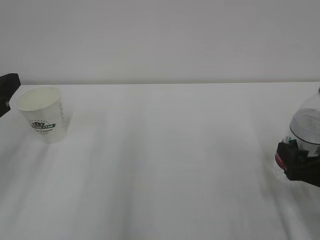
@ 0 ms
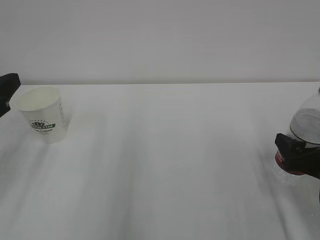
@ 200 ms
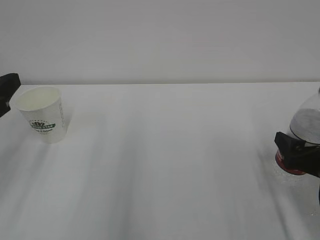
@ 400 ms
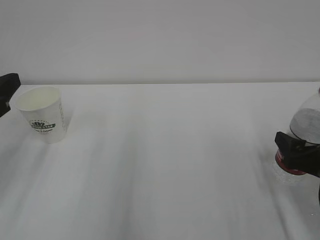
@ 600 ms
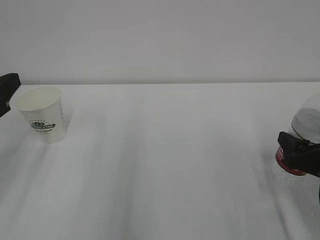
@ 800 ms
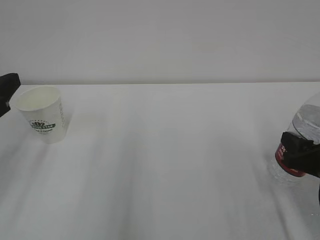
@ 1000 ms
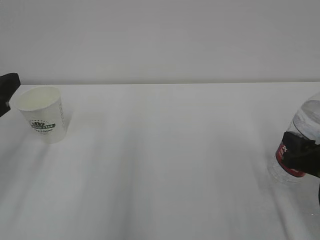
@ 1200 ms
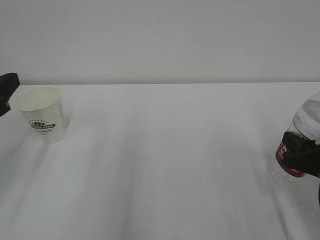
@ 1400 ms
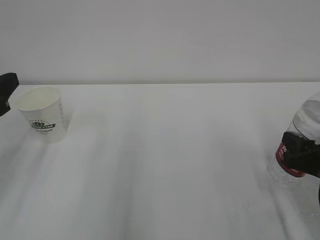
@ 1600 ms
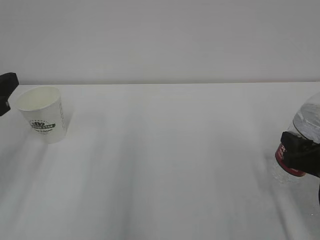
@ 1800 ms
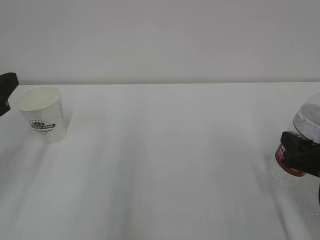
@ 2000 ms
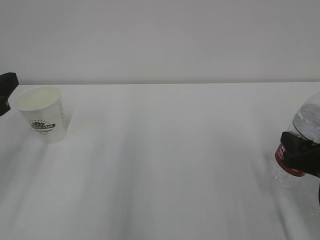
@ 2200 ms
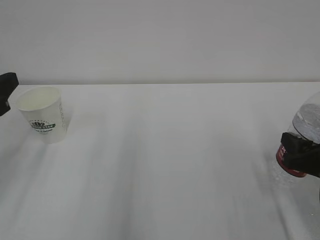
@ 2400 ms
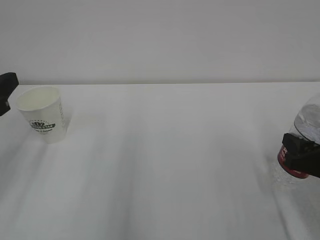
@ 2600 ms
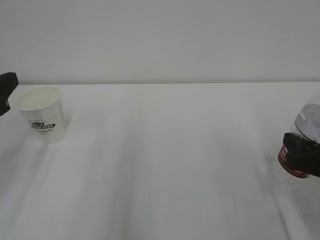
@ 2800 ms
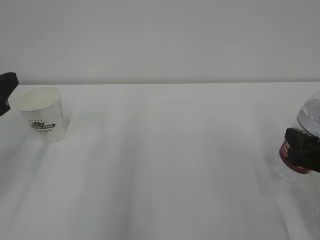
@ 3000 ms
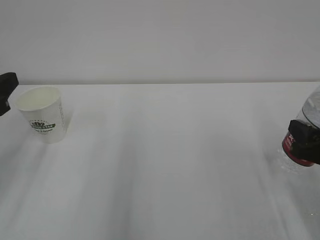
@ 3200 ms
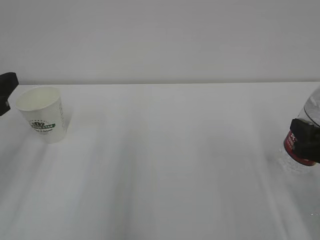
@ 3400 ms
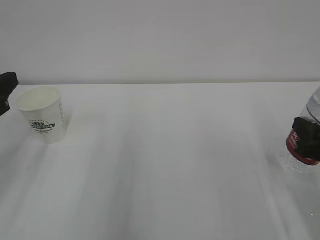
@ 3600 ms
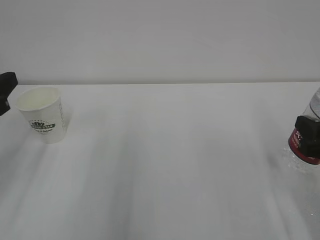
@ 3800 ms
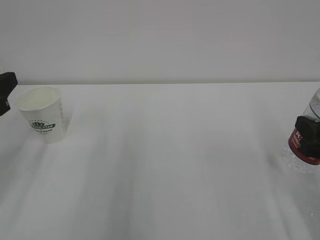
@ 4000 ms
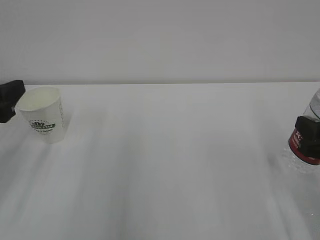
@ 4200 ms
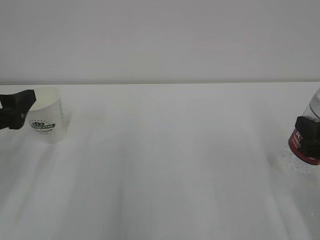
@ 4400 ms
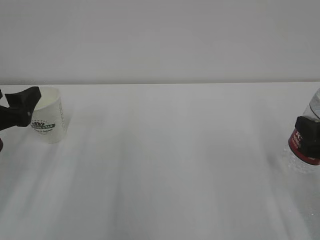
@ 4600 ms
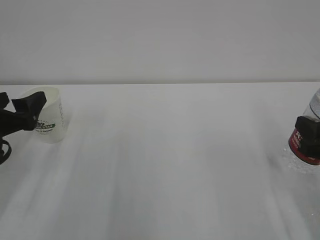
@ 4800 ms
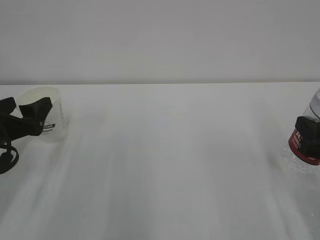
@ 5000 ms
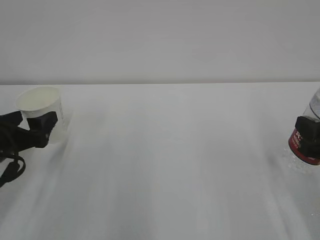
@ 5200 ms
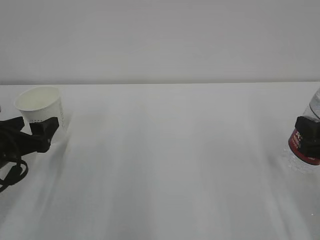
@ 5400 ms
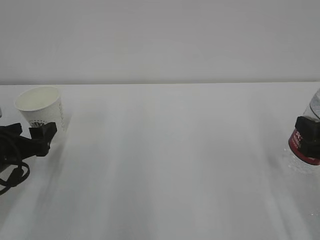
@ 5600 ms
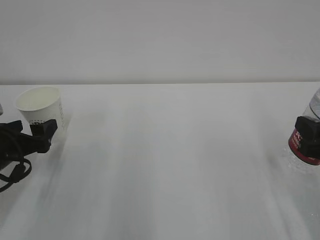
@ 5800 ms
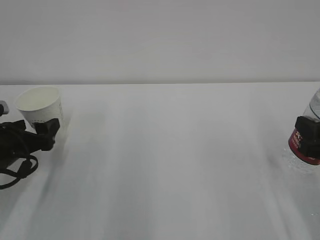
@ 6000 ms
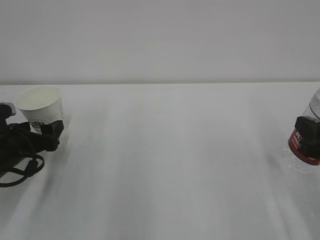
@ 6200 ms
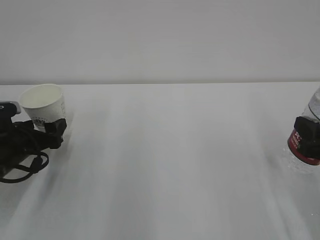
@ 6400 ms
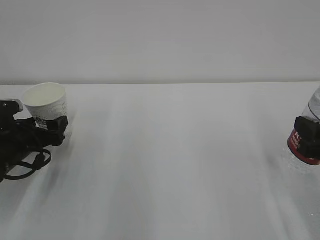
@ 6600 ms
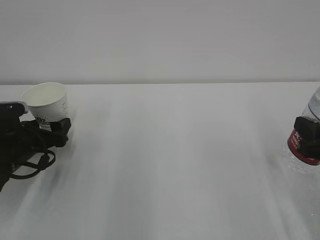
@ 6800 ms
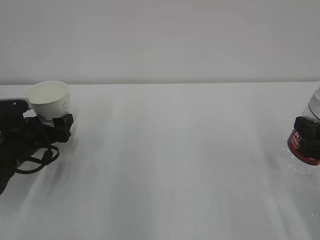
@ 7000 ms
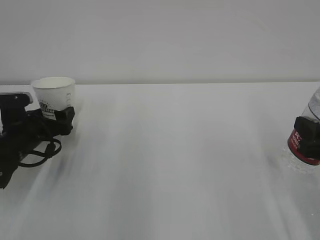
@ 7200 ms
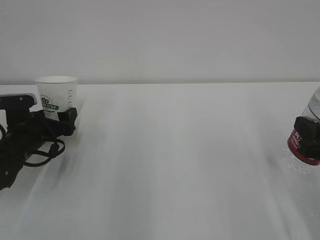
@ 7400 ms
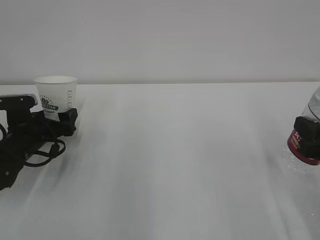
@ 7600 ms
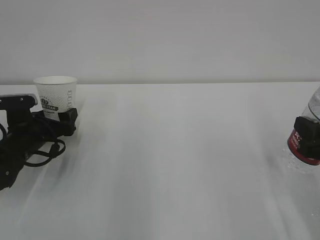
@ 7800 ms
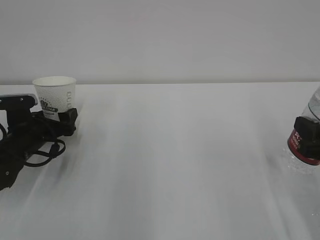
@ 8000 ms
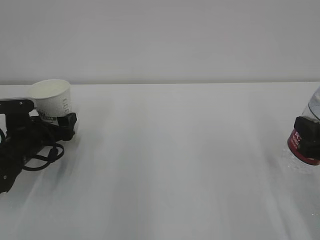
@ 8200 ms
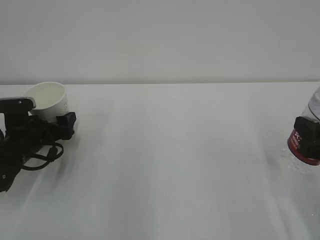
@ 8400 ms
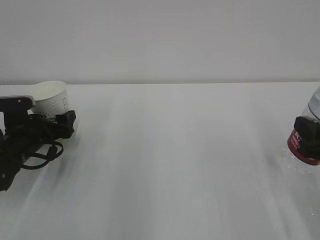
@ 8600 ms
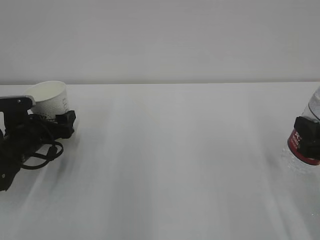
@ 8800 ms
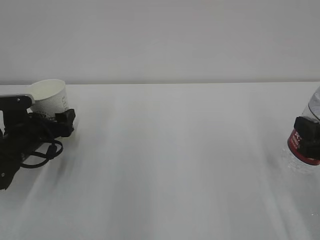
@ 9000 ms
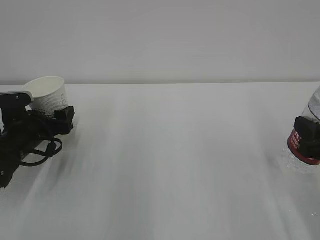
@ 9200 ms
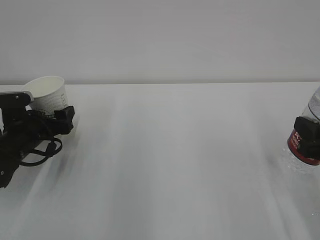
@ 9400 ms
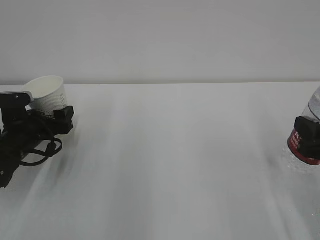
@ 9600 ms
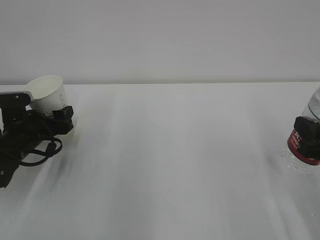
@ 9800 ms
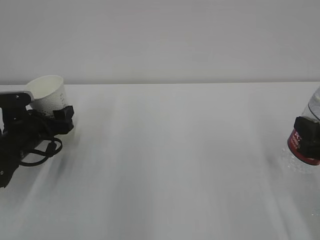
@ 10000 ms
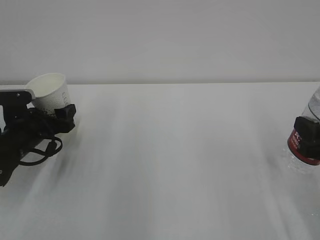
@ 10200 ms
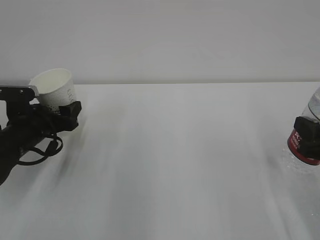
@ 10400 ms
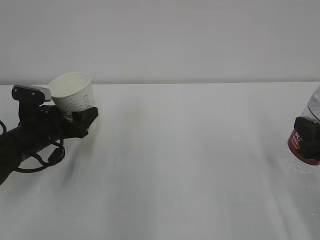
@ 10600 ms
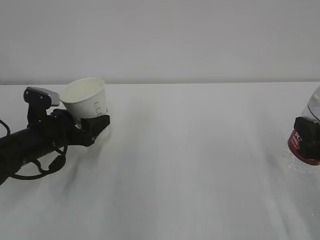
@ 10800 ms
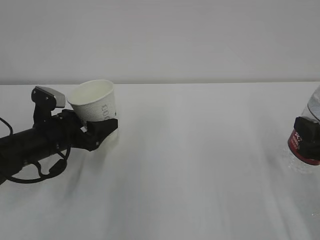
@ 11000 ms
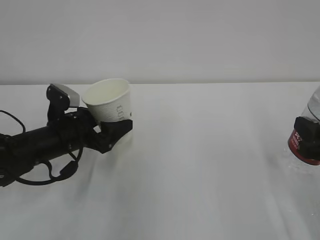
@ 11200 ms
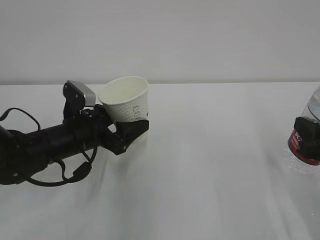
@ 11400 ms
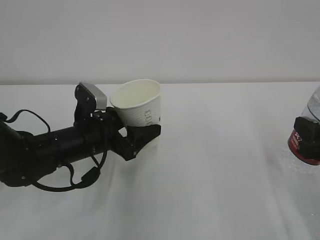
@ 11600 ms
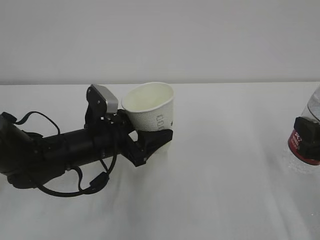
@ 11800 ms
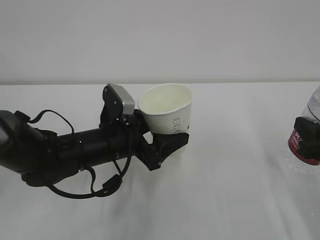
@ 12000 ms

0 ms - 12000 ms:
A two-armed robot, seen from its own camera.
0 ms - 1600 ms: The right gripper closes its fingers.
1600 ms - 3000 ms: The grippers make only small movements.
3000 ms - 4400 ms: The left gripper opens up.
4400 ms - 6000 ms: The left gripper is displaced downward by approximately 10 cm.
6000 ms - 7600 ms: The left gripper heads forward, covering approximately 5 cm.
7600 ms - 9000 ms: Both grippers stay about where they are.
9000 ms - 10400 ms: There are only small adjustments of the grippers.
10400 ms - 12000 ms: The left gripper moves to the right, approximately 15 cm.

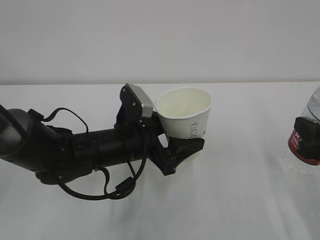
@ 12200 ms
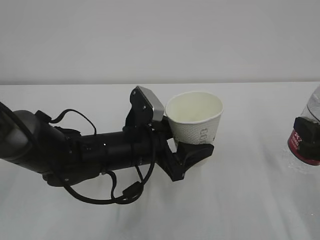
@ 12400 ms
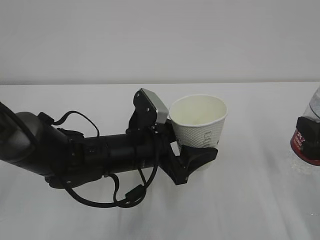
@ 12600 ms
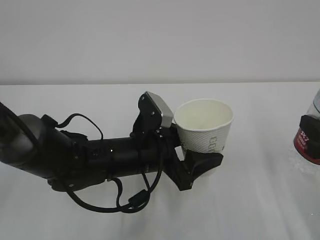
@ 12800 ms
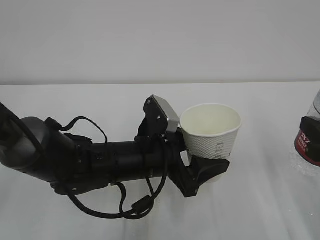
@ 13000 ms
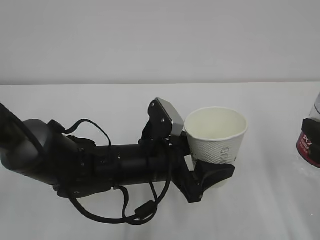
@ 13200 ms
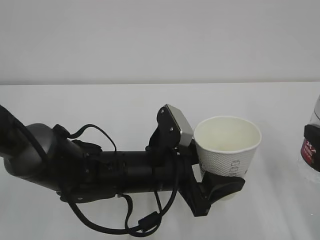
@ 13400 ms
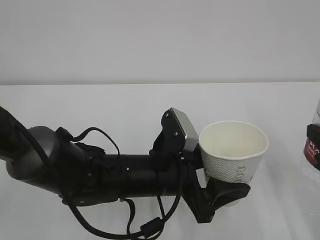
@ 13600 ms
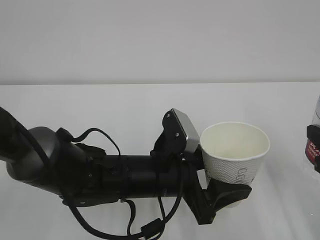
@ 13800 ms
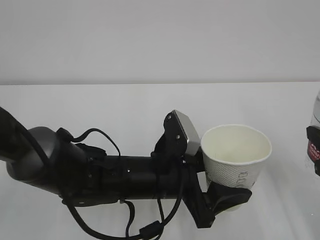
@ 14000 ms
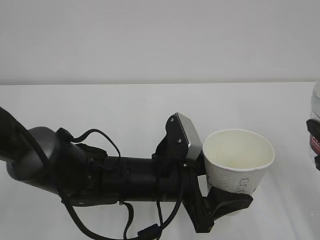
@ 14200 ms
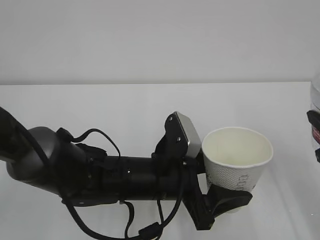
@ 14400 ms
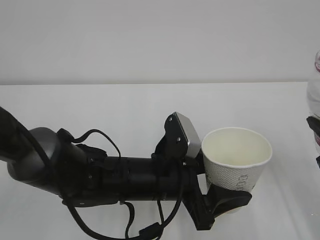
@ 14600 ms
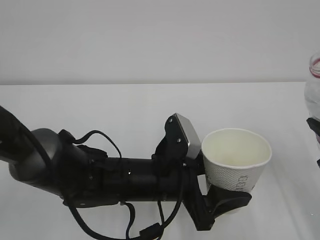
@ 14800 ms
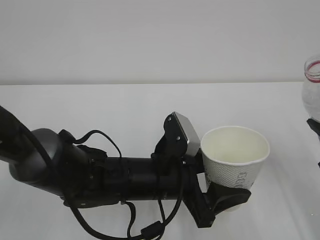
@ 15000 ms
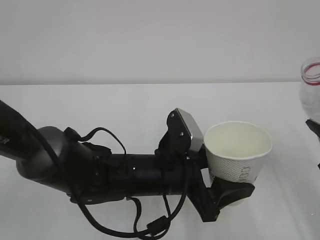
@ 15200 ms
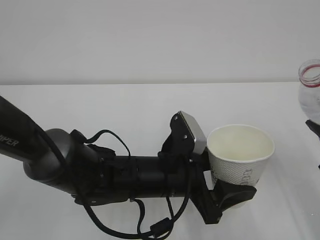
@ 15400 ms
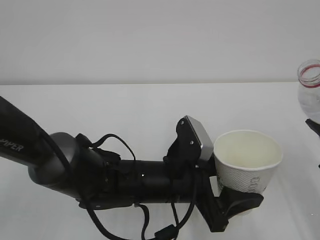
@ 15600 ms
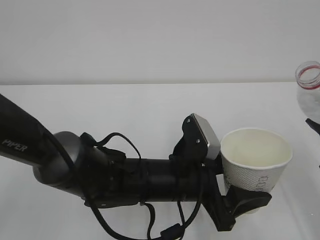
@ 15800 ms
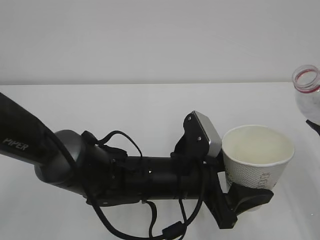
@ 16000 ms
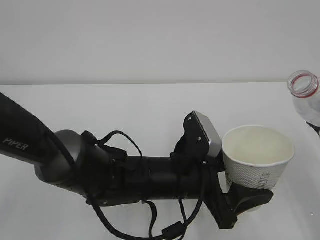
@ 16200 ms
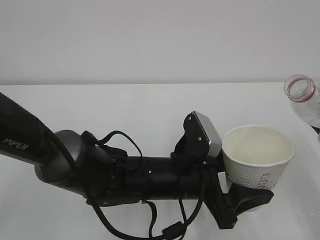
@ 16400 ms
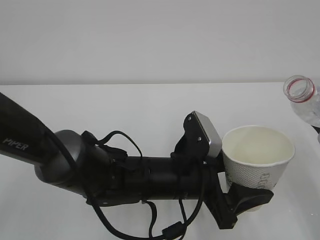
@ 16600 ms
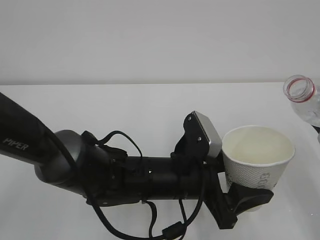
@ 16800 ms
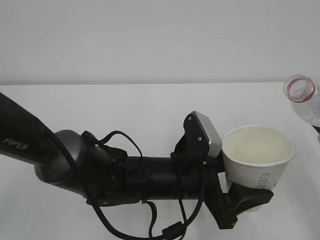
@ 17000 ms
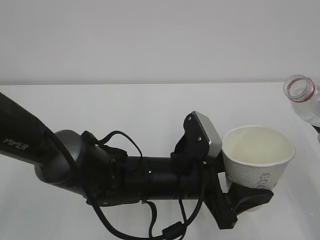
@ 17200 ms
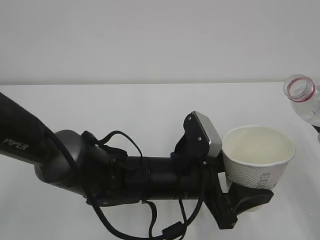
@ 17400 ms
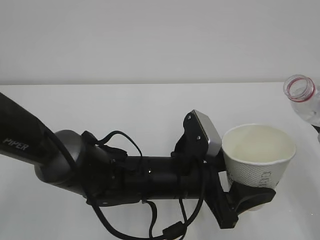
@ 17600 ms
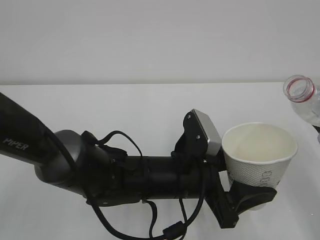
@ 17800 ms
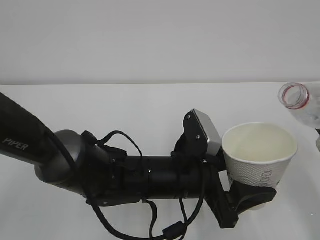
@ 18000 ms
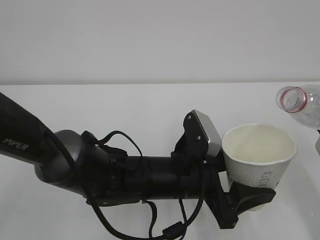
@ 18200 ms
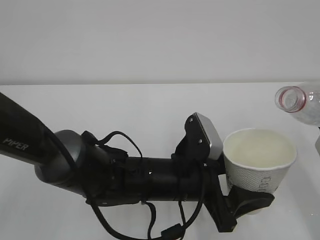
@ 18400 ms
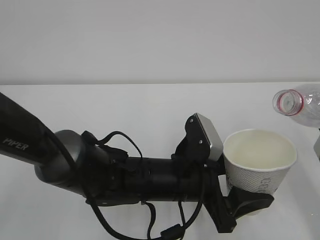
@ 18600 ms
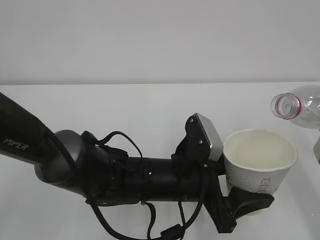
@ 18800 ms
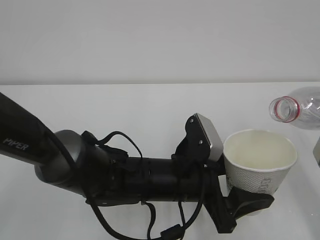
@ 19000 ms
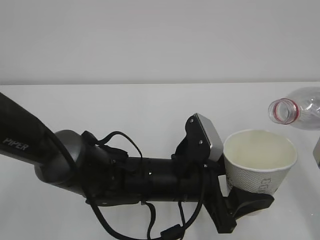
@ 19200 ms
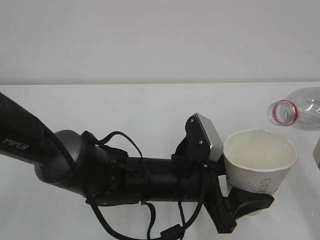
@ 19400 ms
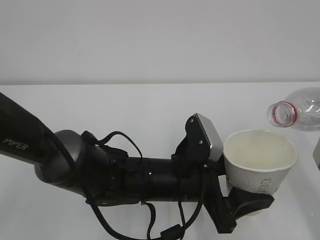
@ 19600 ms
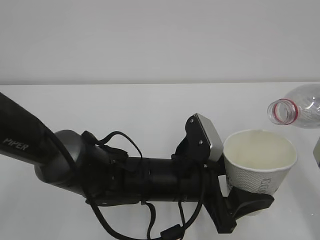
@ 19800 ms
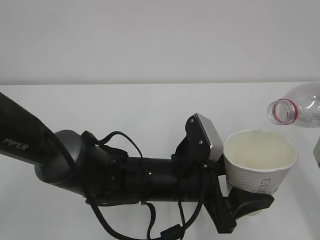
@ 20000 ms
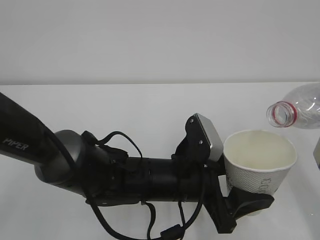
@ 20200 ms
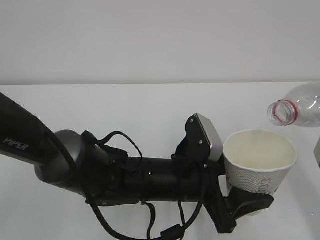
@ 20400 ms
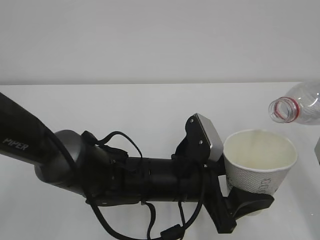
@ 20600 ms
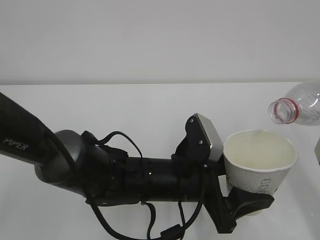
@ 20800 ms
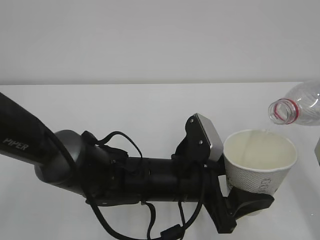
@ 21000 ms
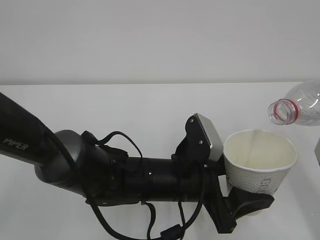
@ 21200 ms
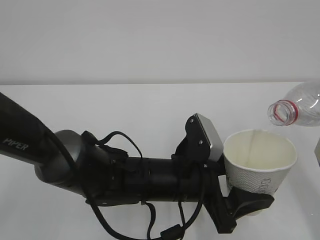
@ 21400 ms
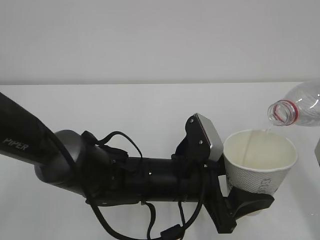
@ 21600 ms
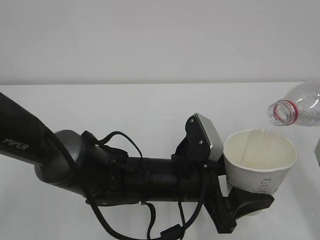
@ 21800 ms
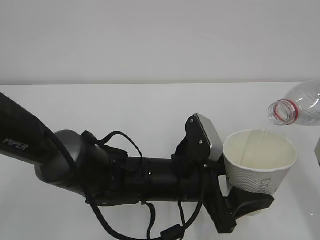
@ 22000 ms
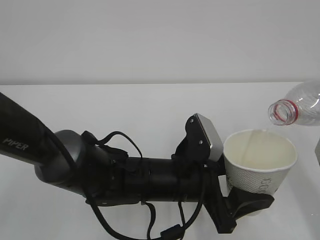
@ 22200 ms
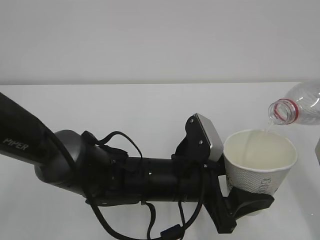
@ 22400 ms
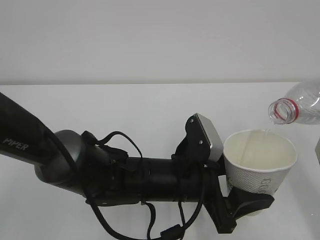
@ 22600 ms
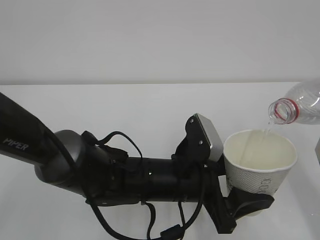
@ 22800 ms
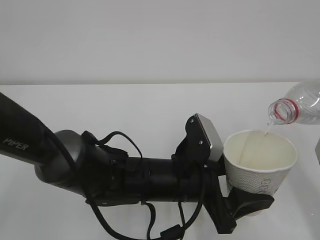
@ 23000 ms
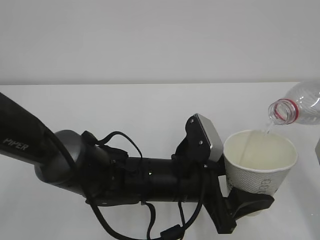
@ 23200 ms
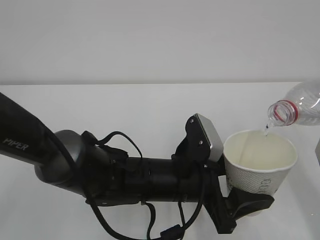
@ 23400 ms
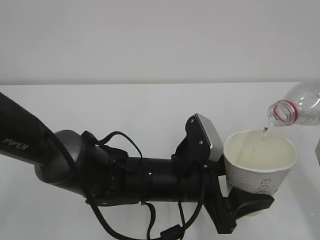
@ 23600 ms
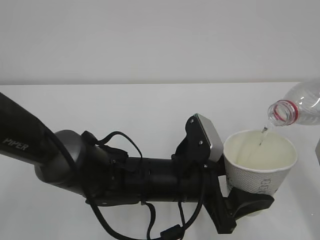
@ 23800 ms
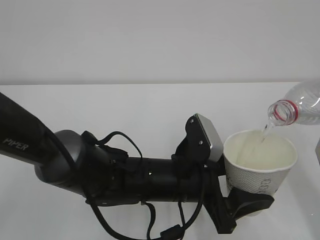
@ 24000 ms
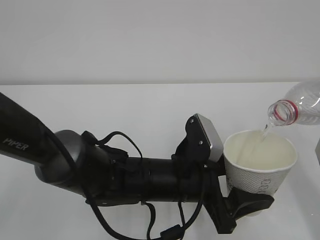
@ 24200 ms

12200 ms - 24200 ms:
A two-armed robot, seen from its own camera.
12200 ms - 13800 ms: The left gripper goes roughly 10 cm backward and to the right.
15200 ms - 16600 ms: The grippers stay close to where they were, moving slightly.
16600 ms - 18200 ms: The grippers make only small movements.
18200 ms - 19800 ms: The grippers stay close to where they were, moving slightly.
19800 ms - 21200 ms: The two grippers keep their place.
21200 ms - 24200 ms: Neither gripper changes place.
